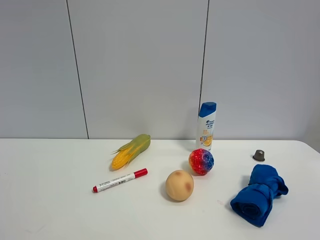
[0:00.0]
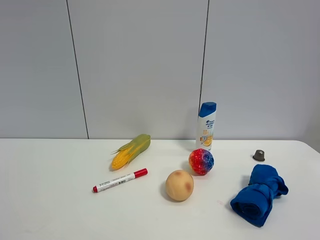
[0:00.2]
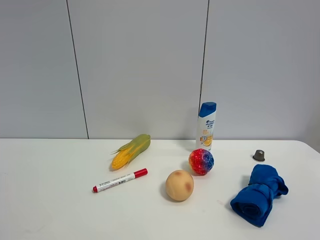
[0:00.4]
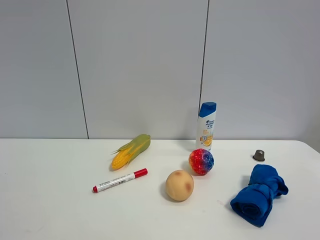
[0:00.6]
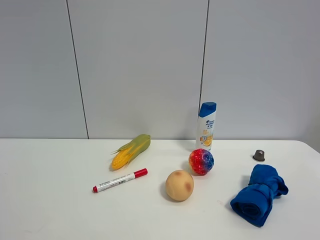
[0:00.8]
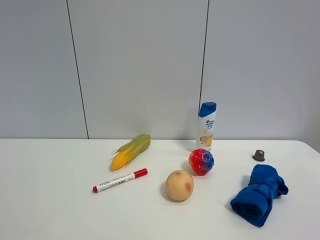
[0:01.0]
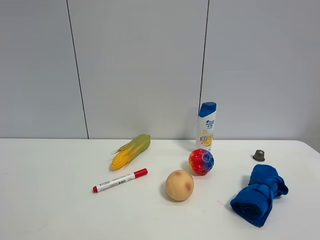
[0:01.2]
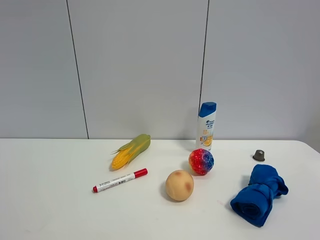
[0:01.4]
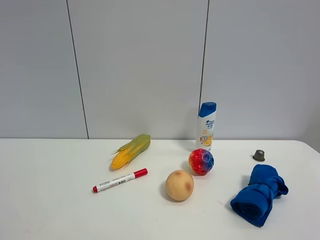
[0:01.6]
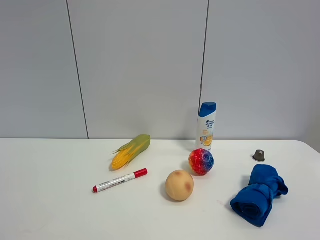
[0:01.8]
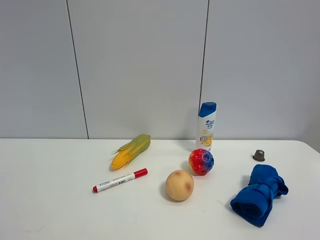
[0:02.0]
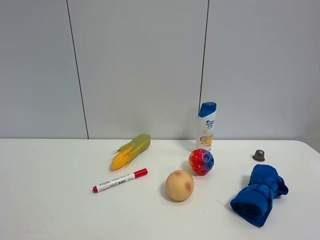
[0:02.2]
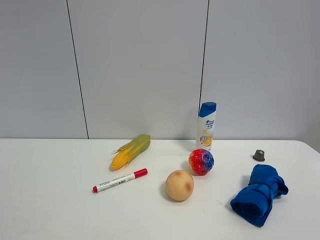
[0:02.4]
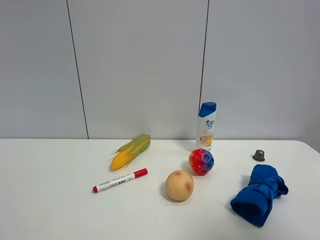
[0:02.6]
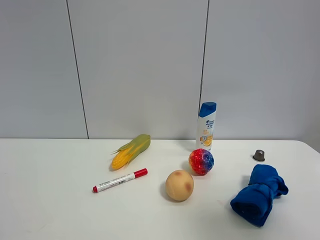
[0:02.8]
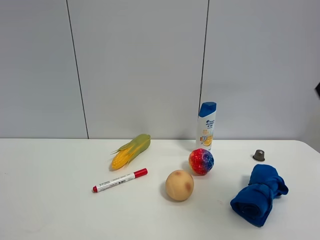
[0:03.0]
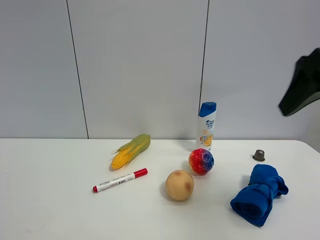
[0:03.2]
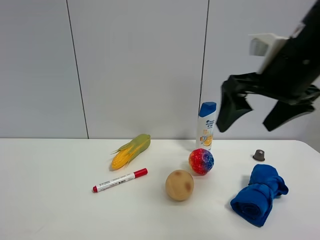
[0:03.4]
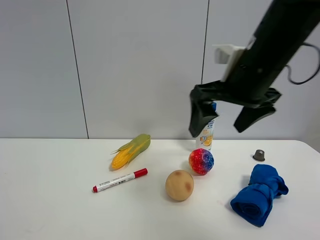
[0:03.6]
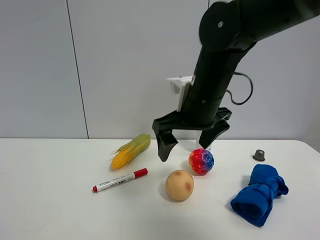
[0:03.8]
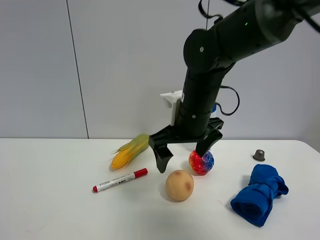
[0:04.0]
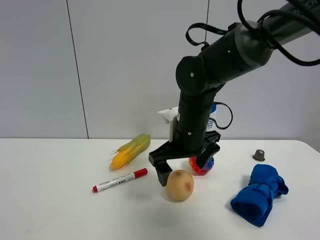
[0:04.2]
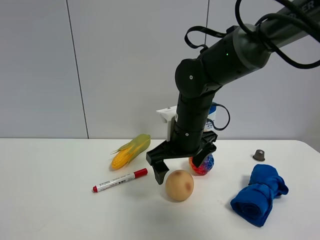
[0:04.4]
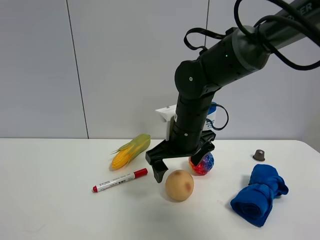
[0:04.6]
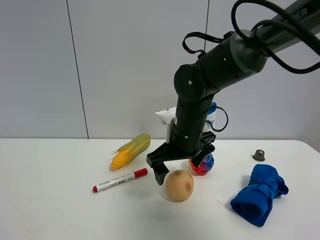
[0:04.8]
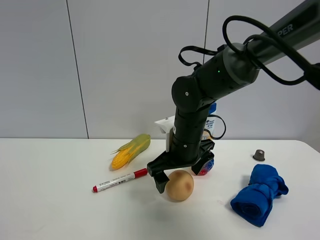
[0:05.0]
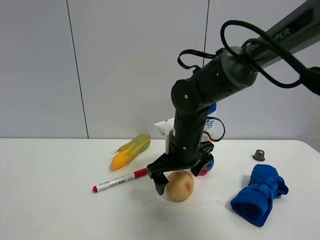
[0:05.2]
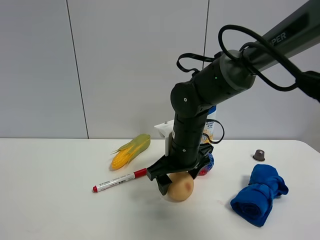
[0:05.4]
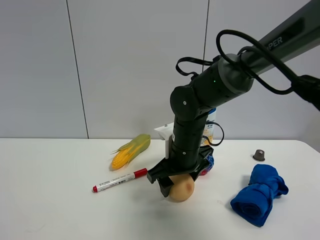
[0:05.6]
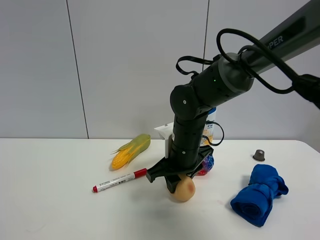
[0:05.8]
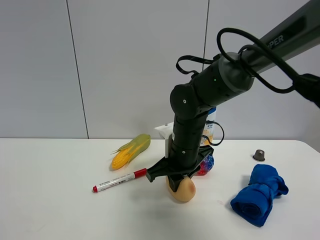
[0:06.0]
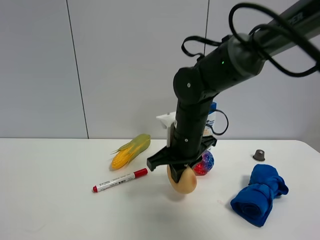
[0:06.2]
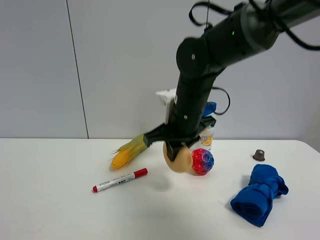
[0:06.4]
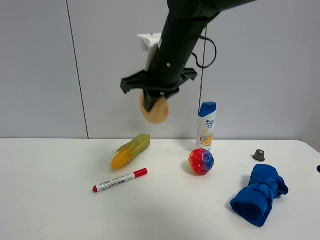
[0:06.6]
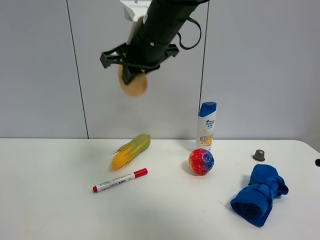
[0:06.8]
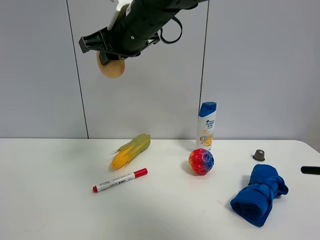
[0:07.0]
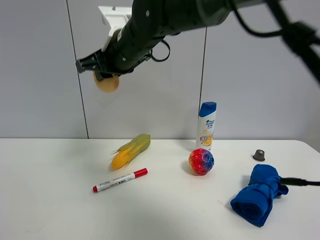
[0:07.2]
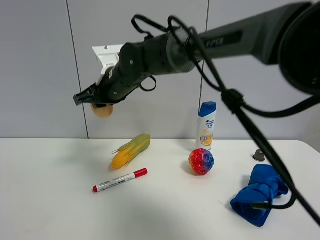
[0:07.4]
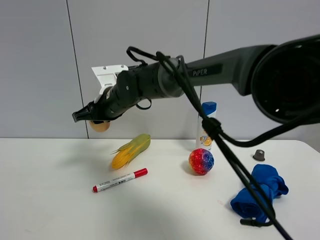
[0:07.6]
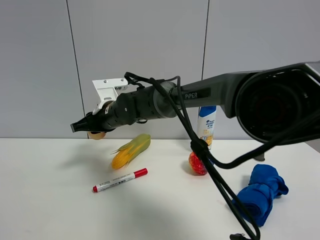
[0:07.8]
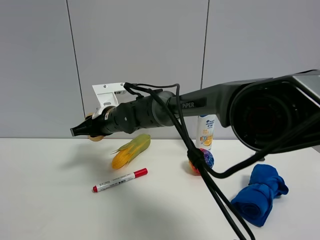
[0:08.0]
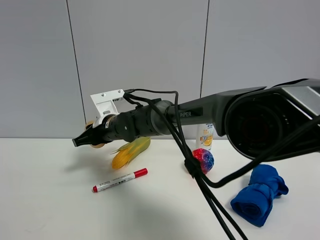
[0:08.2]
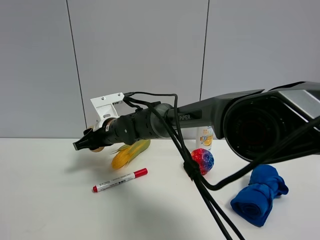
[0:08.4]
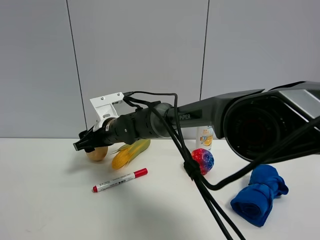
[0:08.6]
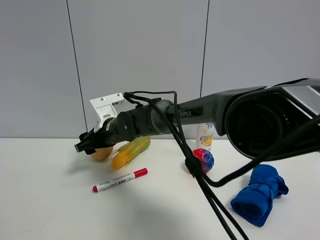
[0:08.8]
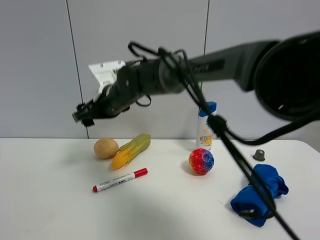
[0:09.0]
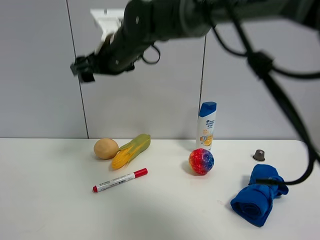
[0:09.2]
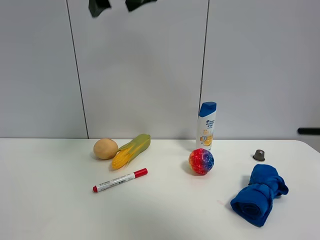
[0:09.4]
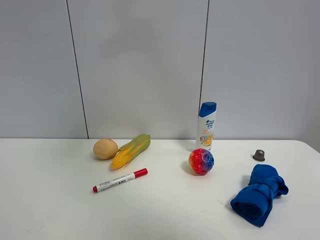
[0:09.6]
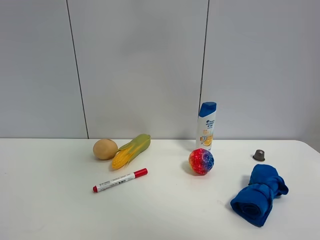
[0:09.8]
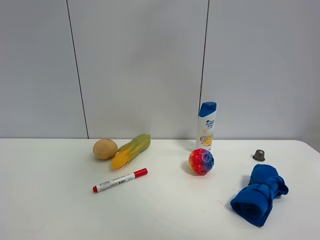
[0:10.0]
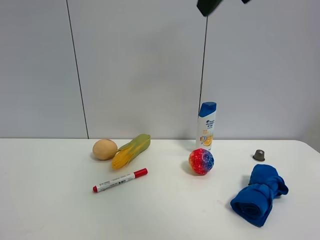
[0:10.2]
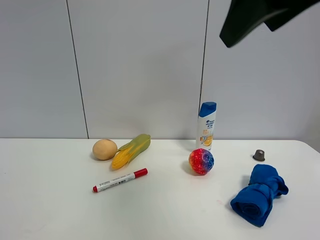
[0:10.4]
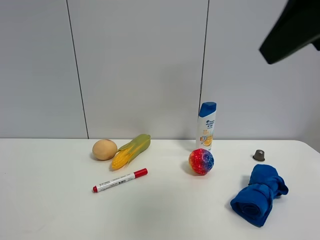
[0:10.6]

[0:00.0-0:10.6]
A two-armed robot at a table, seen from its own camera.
Task of the whole recording: the gripper move the object.
Step, 0:00.0 to 0:05.8: Grasp the egg yolk pastry with the right gripper.
Step, 0:06.0 to 0:09.0: Place the egg yolk pastry on the table with the right gripper.
0:00.0 to 0:01.6: Neither gripper changes place.
0:01.6 to 0:03.0: The right gripper heads forward, covering approximately 20 cm.
0:03.0 to 0:04.6: The right gripper shifts roughly 35 cm to the left, downward and forward.
0:04.6 to 0:06.0: The right gripper closes up.
0:06.0 to 0:07.6: The right gripper moves to the left and forward, some 15 cm, and travels upward and back again, roughly 20 cm each way.
0:07.6 to 0:09.0: The right gripper moves roughly 5 cm, and opens.
0:09.0 to 0:10.6: The right gripper heads to the right, backward and upward, covering some 40 cm.

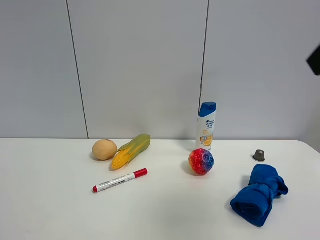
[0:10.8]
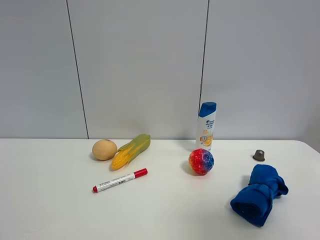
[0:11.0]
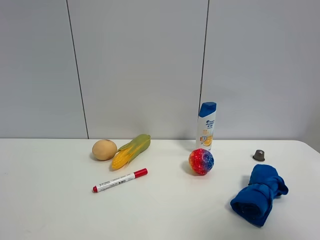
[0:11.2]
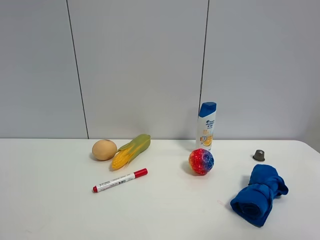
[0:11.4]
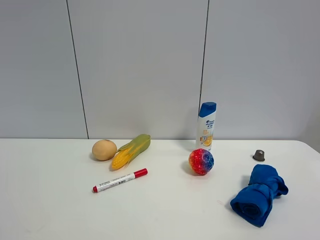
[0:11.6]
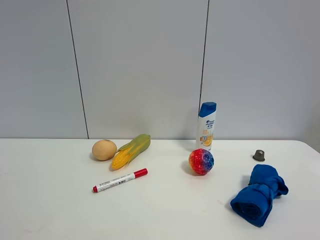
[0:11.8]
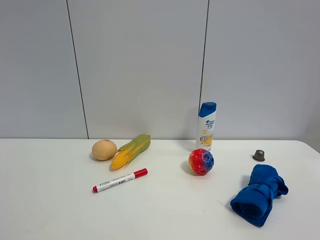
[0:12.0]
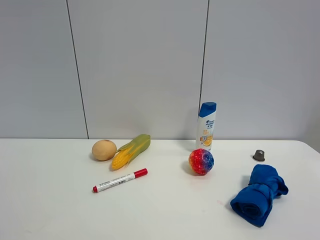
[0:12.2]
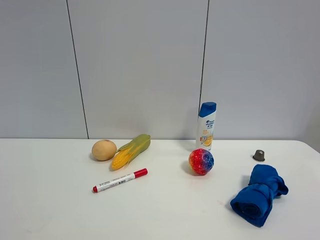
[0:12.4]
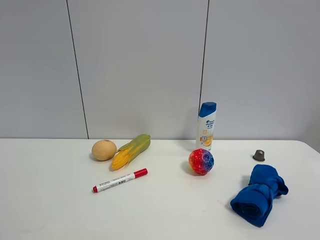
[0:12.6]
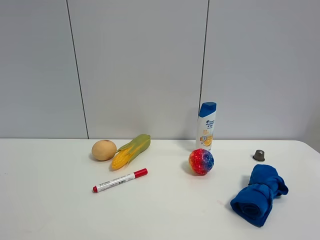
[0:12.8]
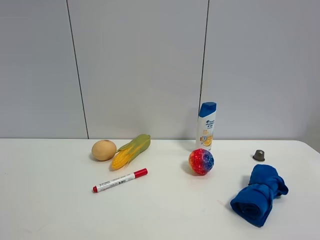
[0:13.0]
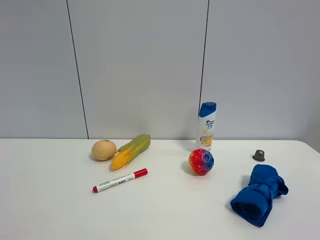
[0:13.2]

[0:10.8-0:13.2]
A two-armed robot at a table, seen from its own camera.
Task of the whole recording: the gripper move the object.
0:10.8 to 0:12.0: The right gripper moves backward and downward, some 15 cm.
0:12.0 to 0:13.2: The two grippers keep their place.

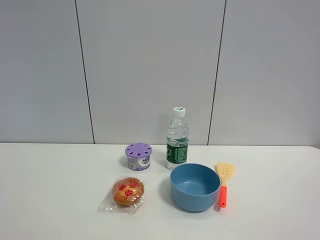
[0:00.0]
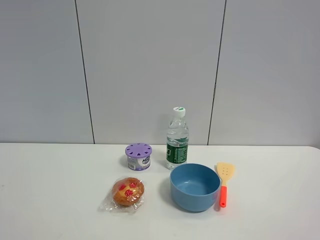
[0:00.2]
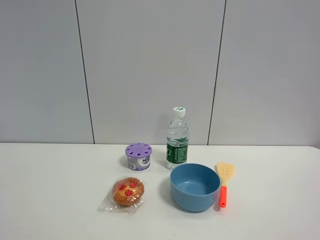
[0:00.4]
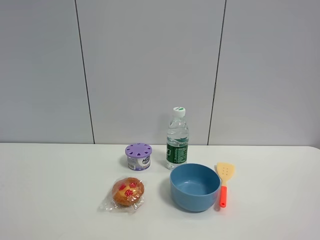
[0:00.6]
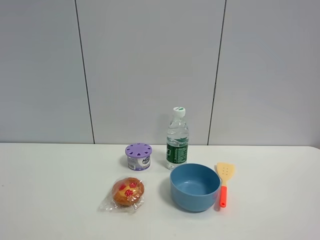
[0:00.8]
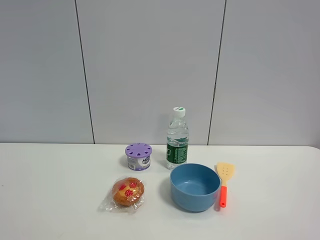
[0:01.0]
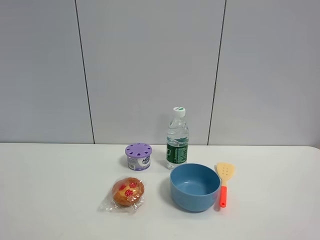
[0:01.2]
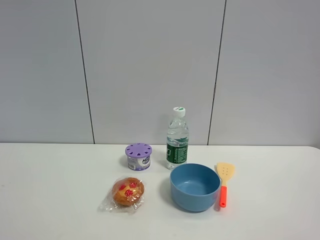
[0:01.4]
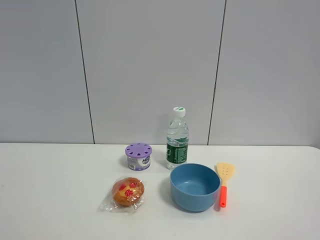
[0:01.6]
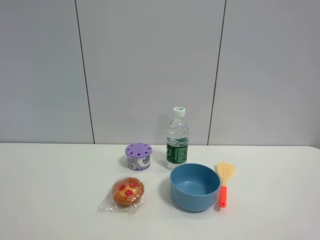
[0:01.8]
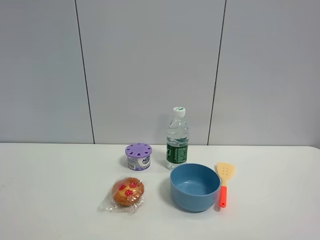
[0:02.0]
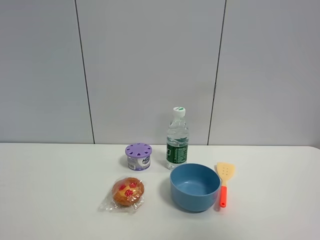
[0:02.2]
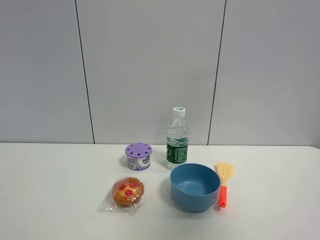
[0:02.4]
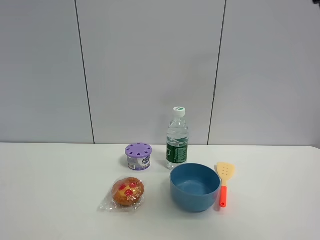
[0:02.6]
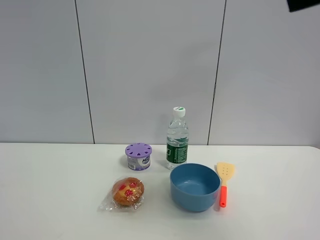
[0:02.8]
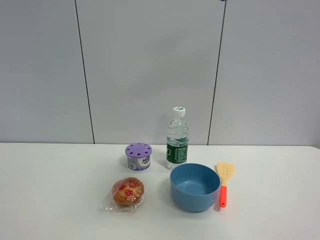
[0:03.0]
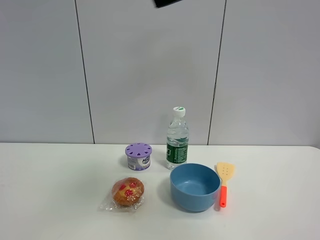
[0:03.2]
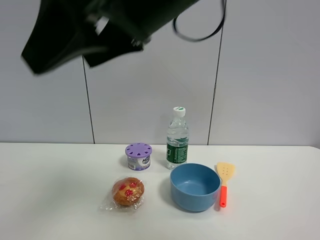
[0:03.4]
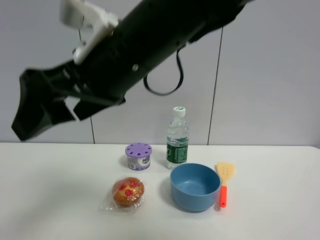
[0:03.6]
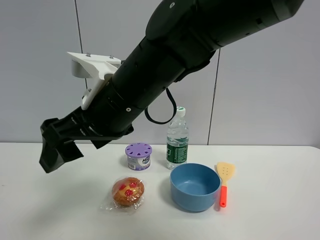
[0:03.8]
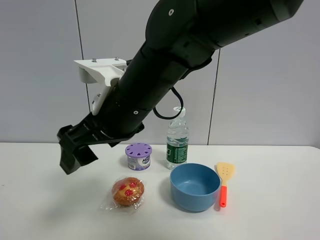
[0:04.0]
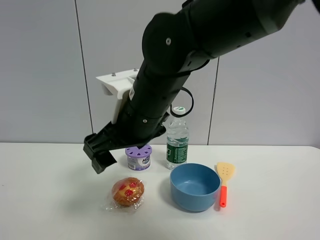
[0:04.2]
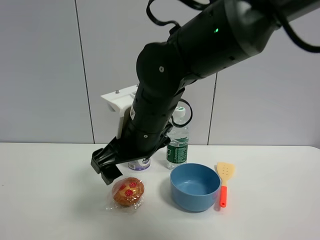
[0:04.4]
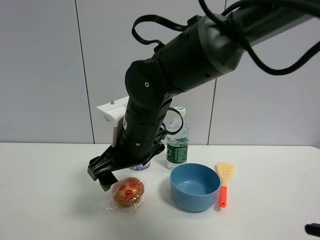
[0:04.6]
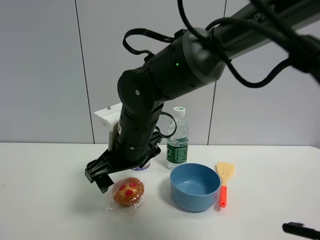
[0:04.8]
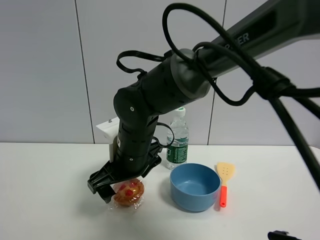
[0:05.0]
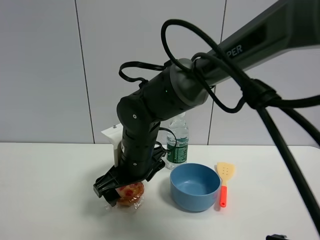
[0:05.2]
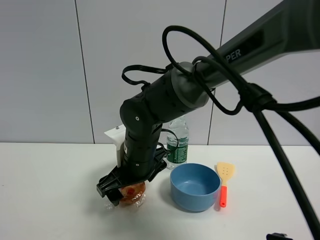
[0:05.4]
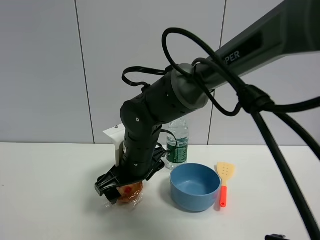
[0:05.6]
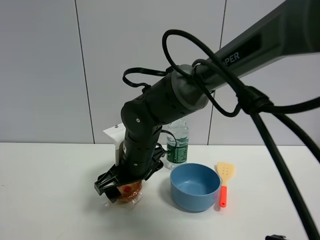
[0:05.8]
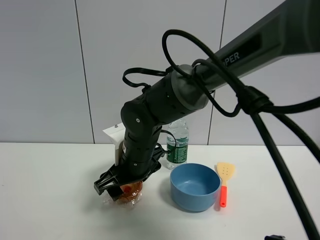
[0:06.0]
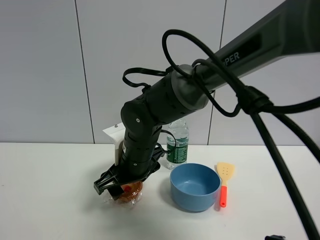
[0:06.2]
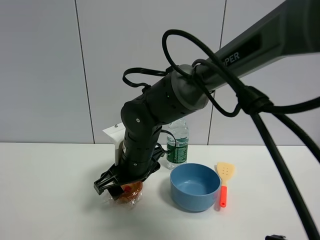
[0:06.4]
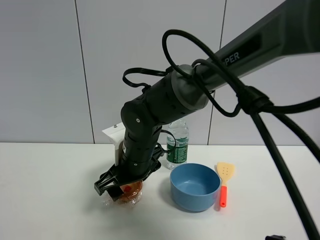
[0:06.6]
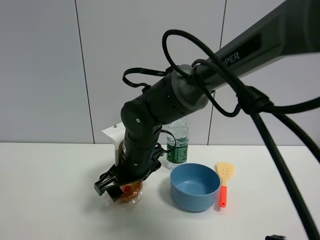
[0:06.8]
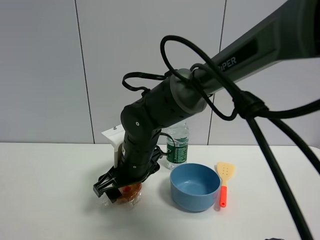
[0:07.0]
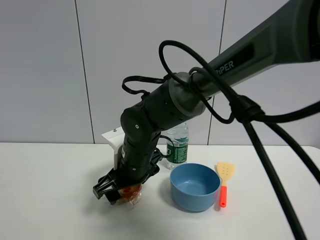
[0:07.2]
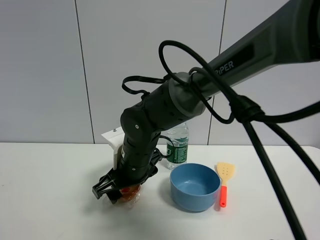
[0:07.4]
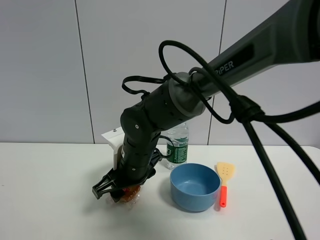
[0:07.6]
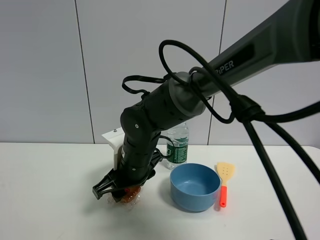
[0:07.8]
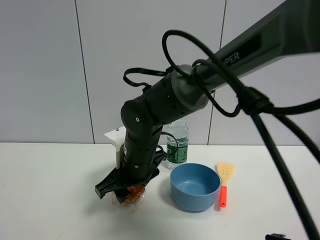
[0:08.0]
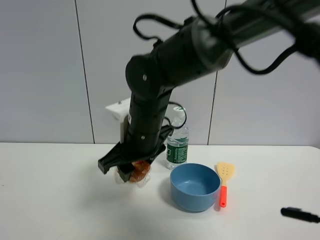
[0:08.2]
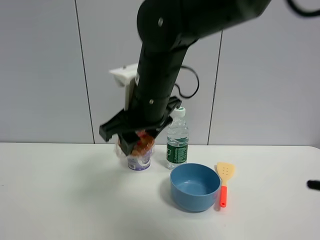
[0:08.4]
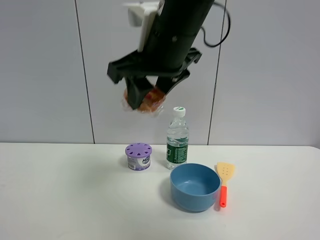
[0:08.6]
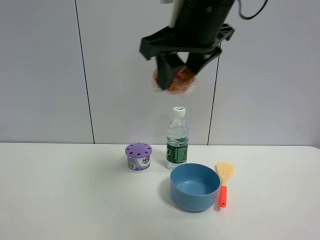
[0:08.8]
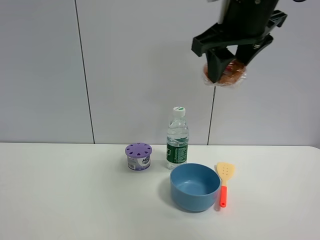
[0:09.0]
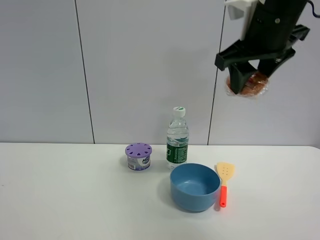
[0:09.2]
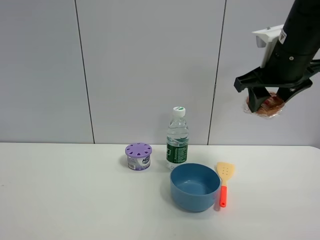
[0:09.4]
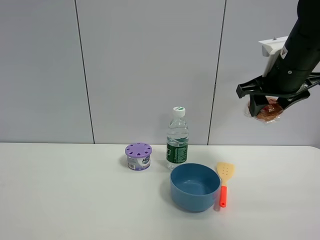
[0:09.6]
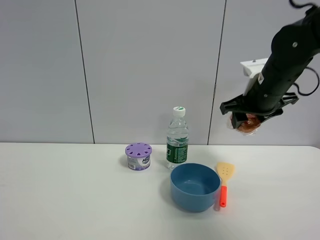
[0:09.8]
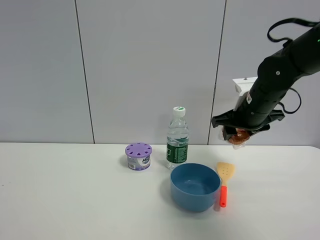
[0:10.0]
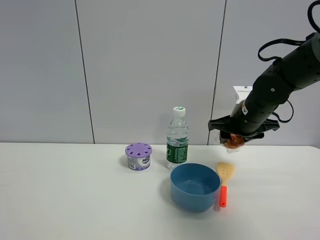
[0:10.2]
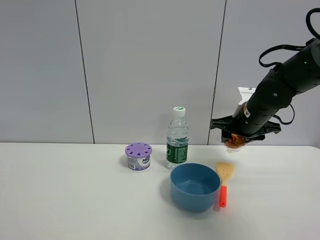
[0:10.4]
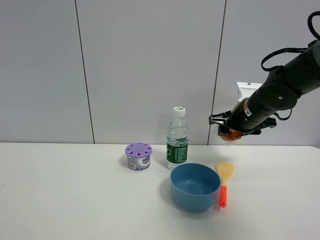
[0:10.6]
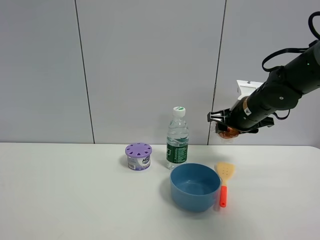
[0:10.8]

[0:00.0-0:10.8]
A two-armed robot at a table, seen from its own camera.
Task of the whole recording: the gripper move the object.
Step, 0:00.0 to 0:06.2: Grasp the egg tart with the right gripper.
0:00.0 to 0:01.6: Both grippers stay put.
0:01.6 to 0:03.0: The right gripper goes some 30 cm forward, to the left and upward.
0:03.0 to 0:04.6: The right gripper moves downward and to the left, about 30 cm, and opens its fingers.
0:04.6 to 0:06.2: The right gripper heads downward, covering some 5 cm, and closes.
0:06.2 to 0:07.8: The right gripper closes.
0:07.8 to 0:09.2: The right gripper shifts some 30 cm upward and to the right.
0:09.2 to 0:10.8: The right gripper travels downward and forward by some 20 cm.
